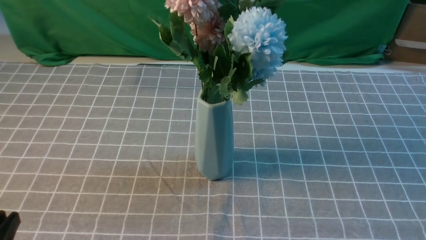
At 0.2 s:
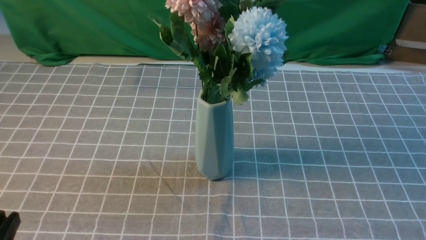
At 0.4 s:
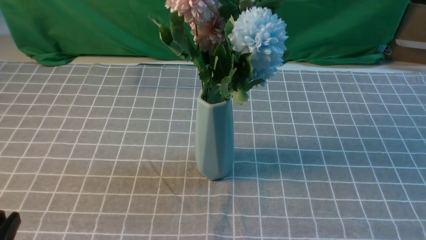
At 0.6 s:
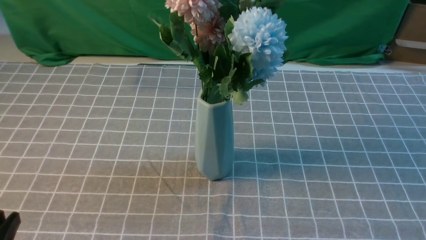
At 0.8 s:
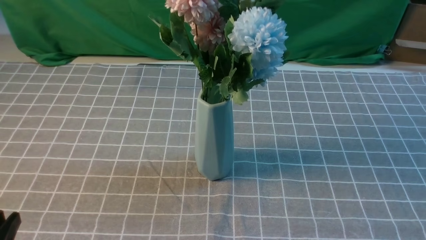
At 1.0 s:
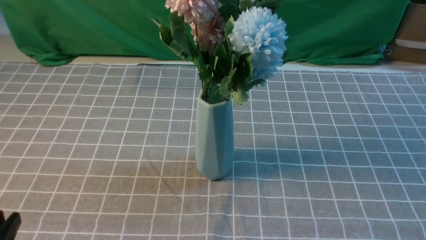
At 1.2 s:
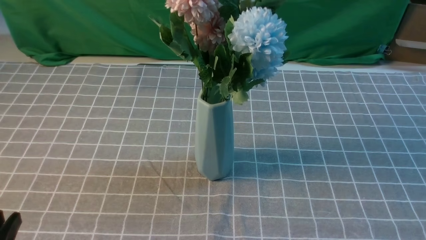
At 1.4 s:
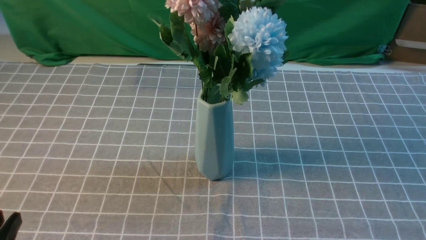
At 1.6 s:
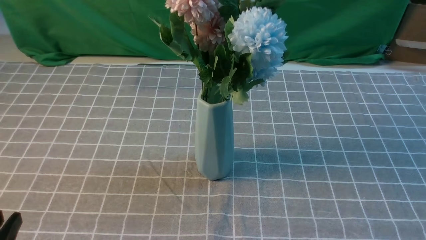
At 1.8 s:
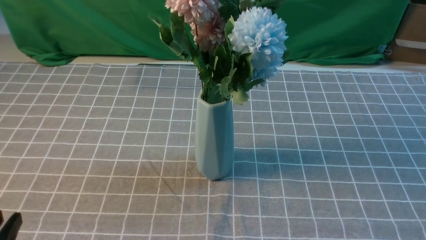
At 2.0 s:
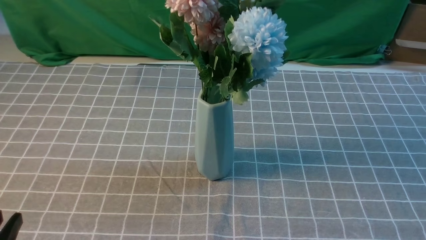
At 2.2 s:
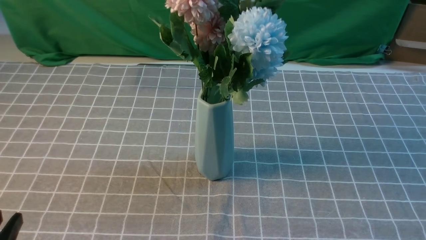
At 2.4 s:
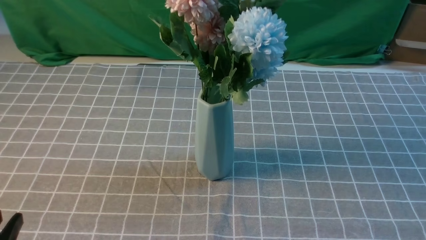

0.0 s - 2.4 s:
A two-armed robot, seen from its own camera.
Task of the whole recording: insert the flowers into the vase on the table with the grey tablecloth.
1.2 s - 2.4 s: Both grippers stay about where they are.
